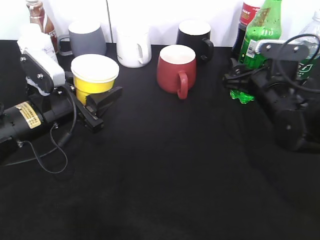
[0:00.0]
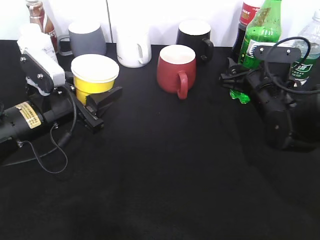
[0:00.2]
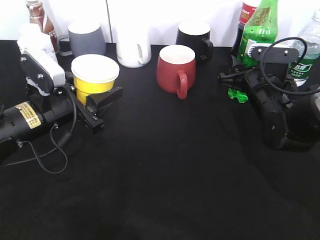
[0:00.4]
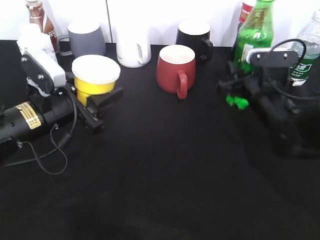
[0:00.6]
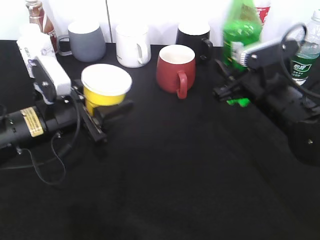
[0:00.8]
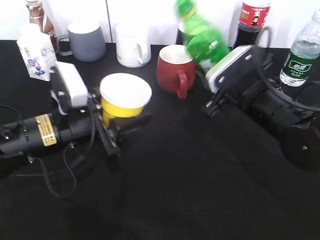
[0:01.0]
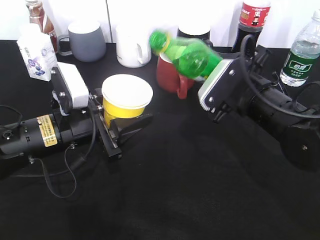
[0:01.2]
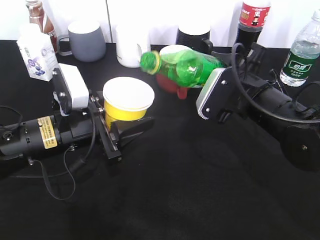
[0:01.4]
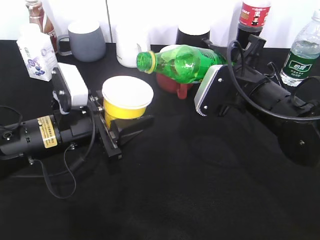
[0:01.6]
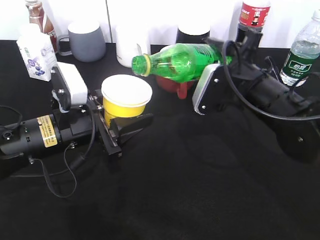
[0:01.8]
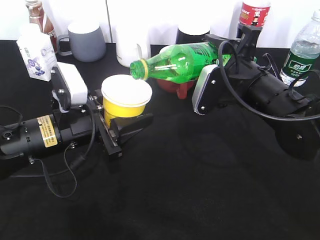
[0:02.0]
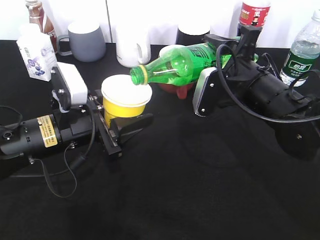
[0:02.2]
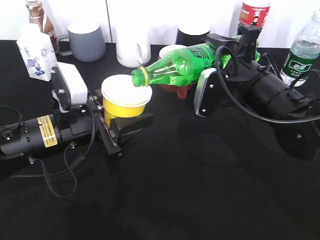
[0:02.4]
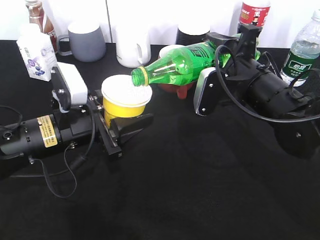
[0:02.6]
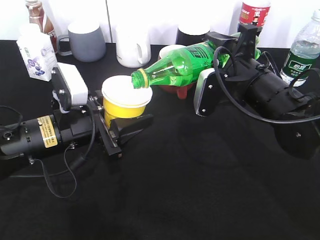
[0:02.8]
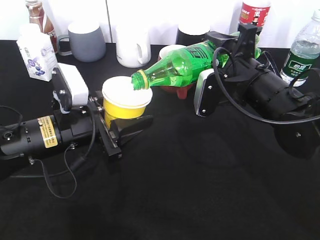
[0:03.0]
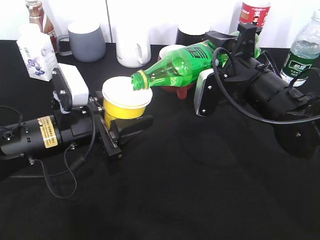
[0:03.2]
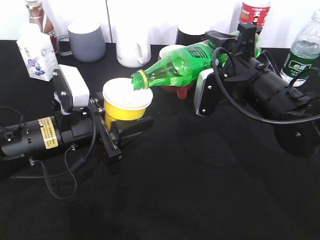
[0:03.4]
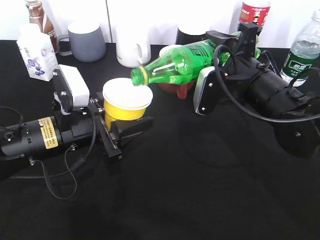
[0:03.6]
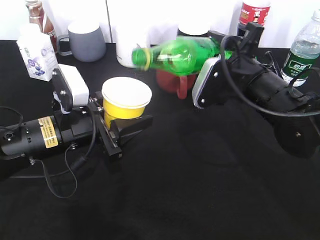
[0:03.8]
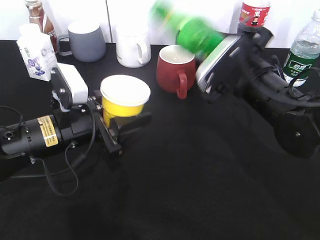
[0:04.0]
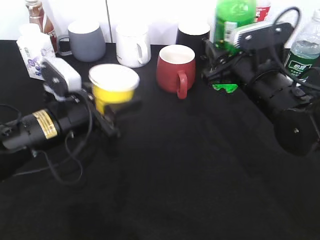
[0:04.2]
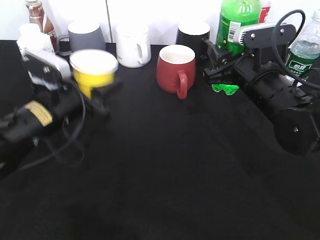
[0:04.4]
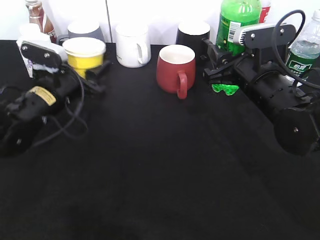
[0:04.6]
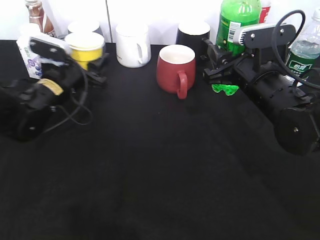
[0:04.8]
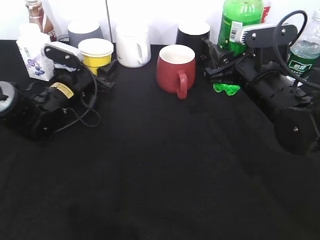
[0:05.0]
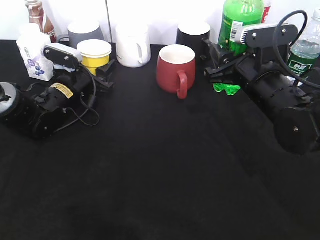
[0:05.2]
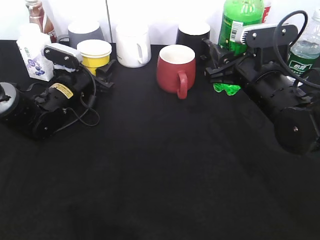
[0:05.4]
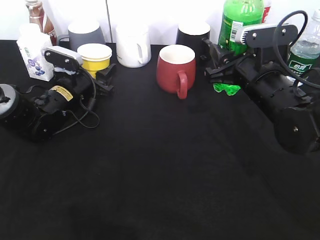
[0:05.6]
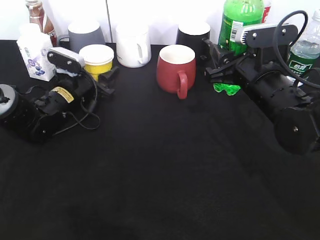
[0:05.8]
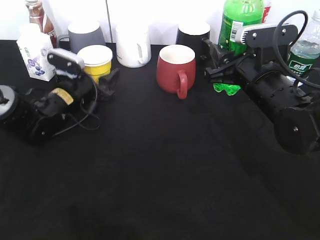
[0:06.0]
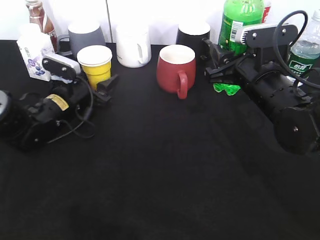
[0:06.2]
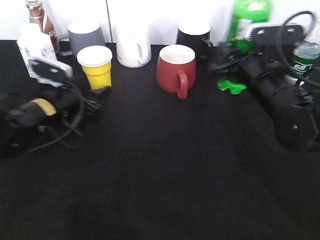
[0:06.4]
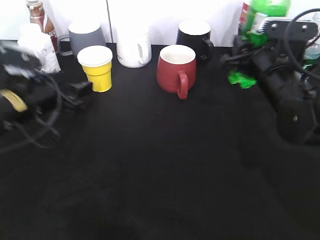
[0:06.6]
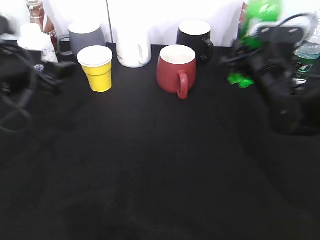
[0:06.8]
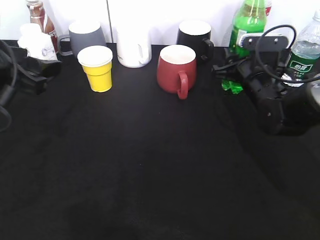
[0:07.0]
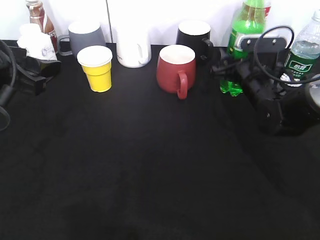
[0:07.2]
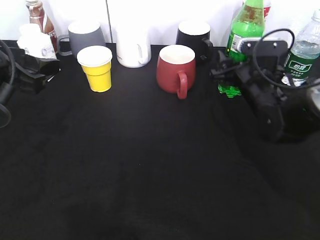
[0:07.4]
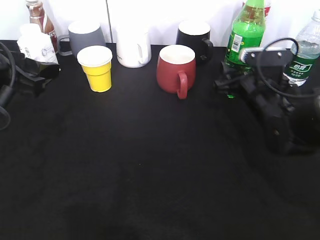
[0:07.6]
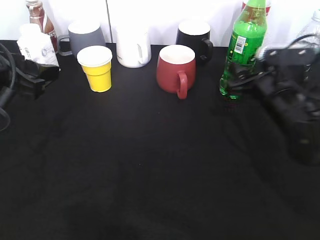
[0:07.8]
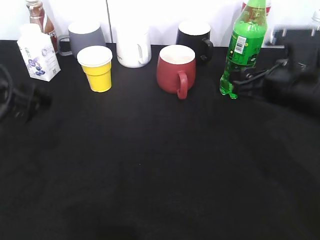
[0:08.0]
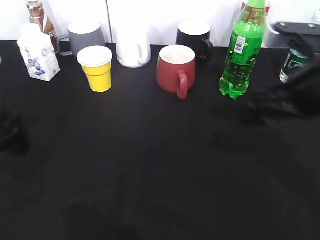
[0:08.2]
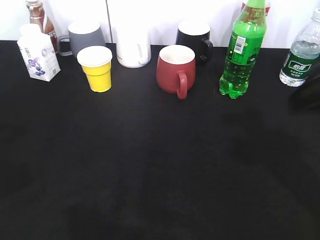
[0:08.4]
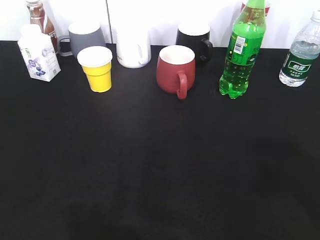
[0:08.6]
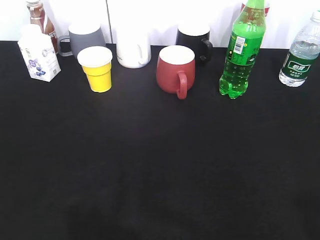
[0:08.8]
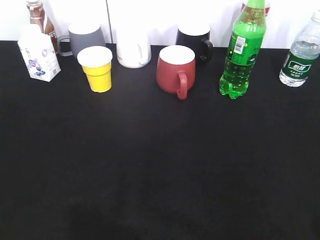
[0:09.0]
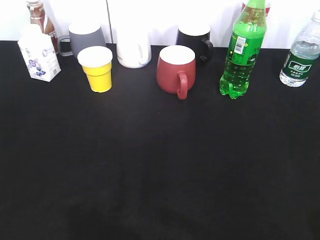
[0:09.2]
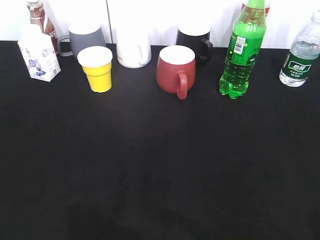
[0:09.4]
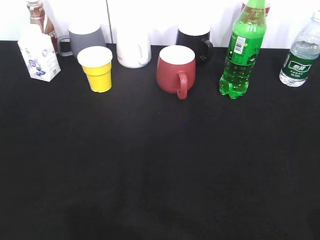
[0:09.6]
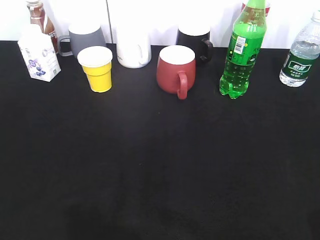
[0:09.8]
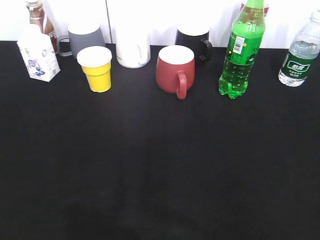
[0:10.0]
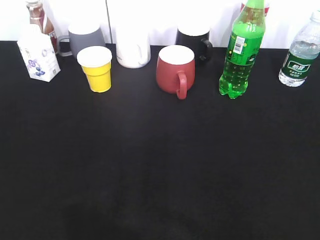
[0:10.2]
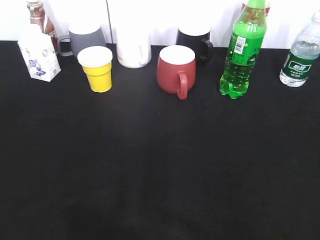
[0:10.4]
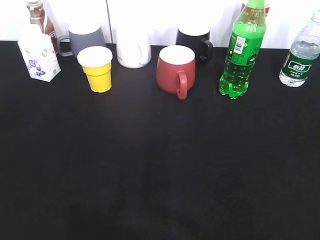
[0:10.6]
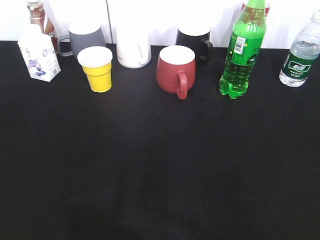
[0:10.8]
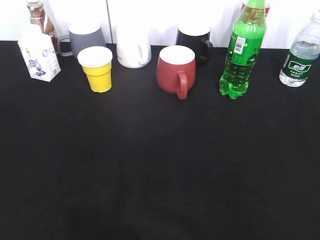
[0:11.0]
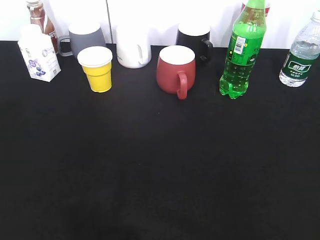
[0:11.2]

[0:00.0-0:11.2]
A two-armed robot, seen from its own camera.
Step, 0:00.6 to 0:03.8: Pour the sprite from bottle to cup with right gripper.
Step, 0:04.0 to 0:07.6: Place the sprite bottle on the table with right gripper.
0:00.0 to 0:01.6: The right gripper changes place by approximately 5 cm, and closes up; the left gripper shifts by about 5 cm.
0:03.2 to 0:04.8: The left gripper goes roughly 15 cm forward.
0:04.8 to 0:06.4: The left gripper opens.
0:06.4 to 0:08.0: The left gripper is displaced upward and backward by about 15 cm. The right gripper opens up.
0:08.0 to 0:09.6: The two grippers go roughly 25 cm backward.

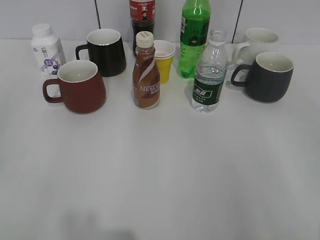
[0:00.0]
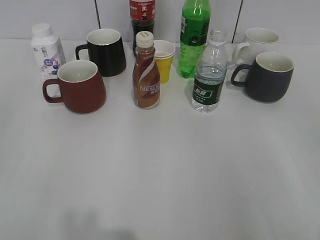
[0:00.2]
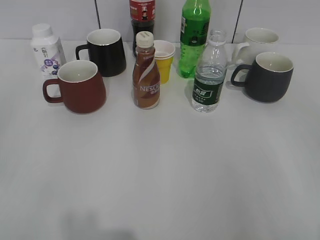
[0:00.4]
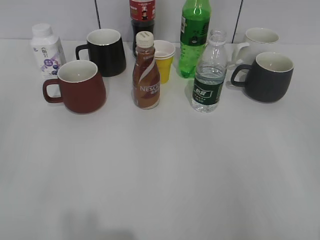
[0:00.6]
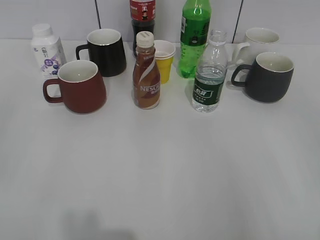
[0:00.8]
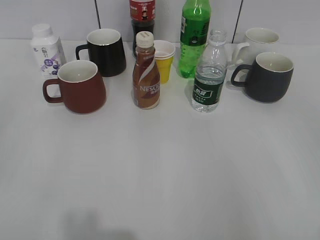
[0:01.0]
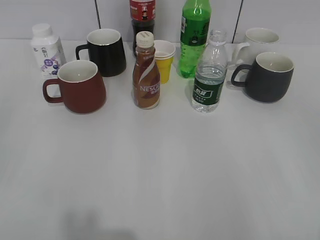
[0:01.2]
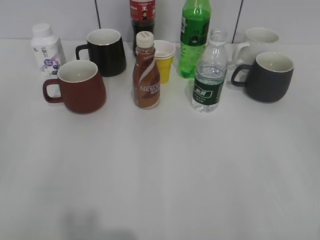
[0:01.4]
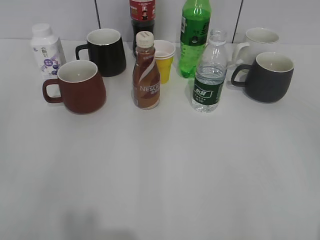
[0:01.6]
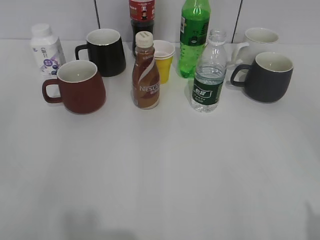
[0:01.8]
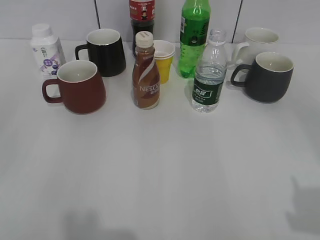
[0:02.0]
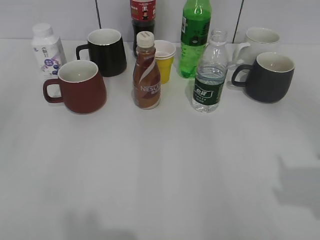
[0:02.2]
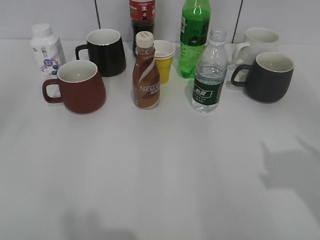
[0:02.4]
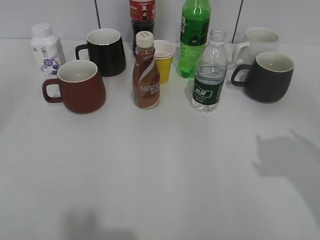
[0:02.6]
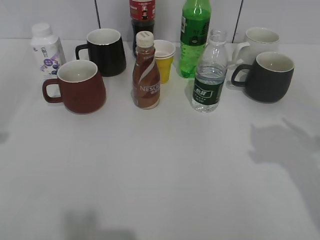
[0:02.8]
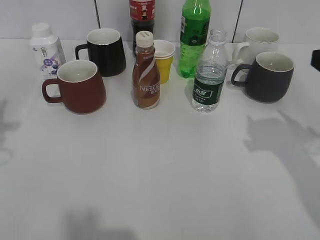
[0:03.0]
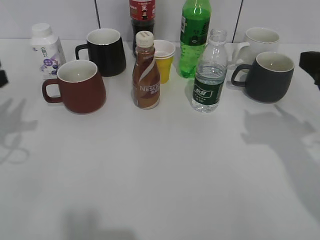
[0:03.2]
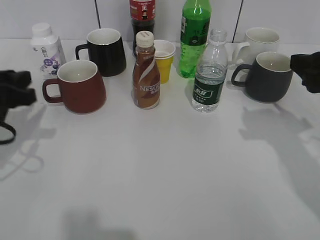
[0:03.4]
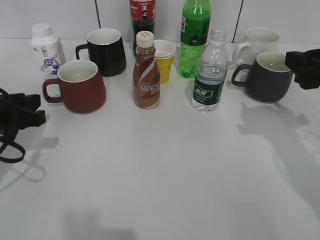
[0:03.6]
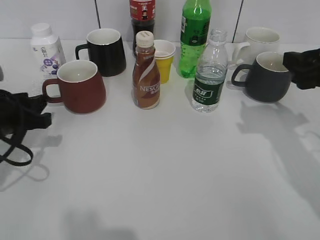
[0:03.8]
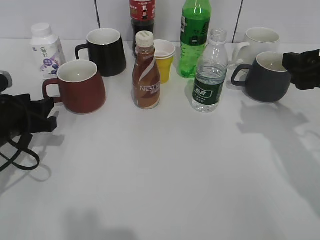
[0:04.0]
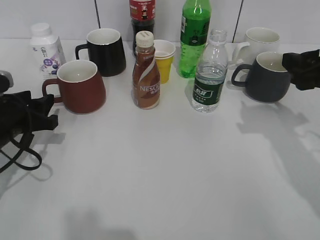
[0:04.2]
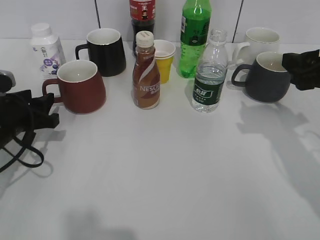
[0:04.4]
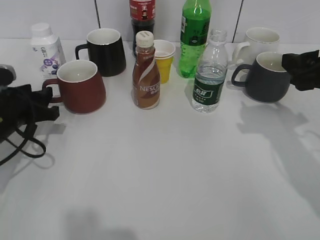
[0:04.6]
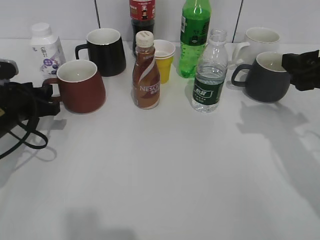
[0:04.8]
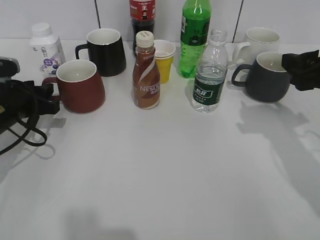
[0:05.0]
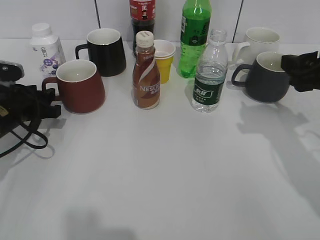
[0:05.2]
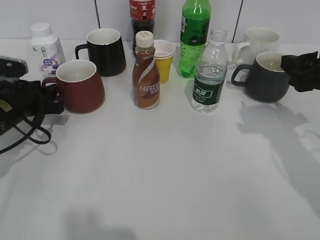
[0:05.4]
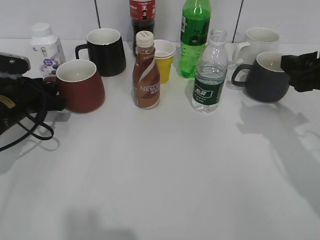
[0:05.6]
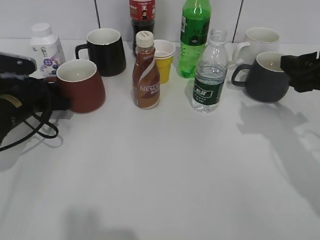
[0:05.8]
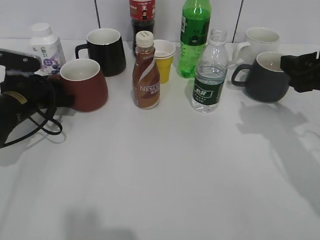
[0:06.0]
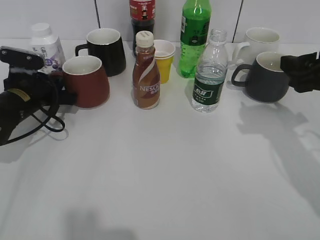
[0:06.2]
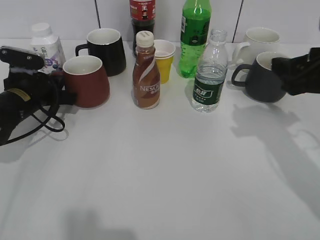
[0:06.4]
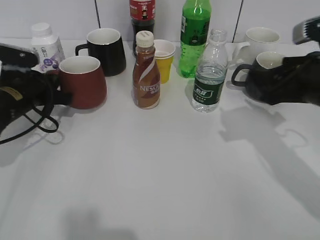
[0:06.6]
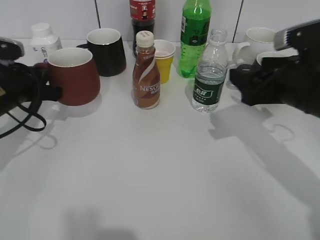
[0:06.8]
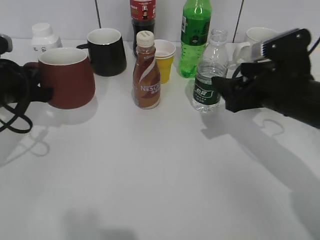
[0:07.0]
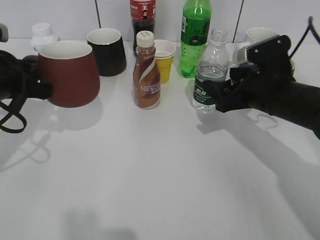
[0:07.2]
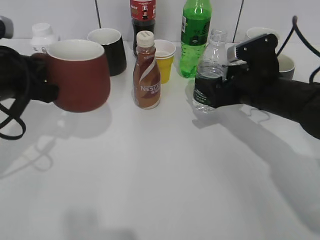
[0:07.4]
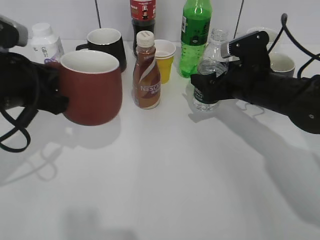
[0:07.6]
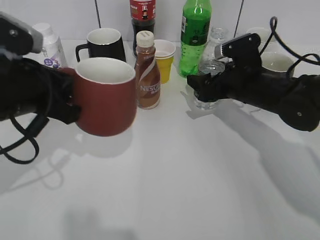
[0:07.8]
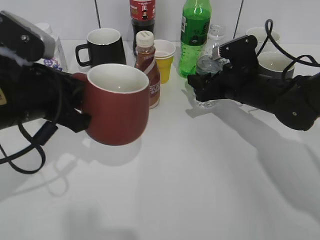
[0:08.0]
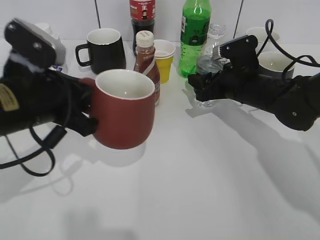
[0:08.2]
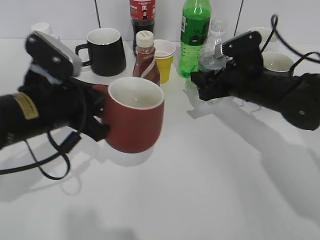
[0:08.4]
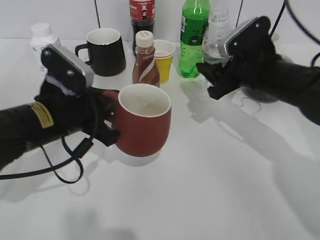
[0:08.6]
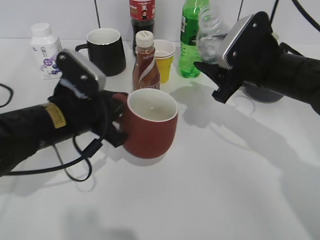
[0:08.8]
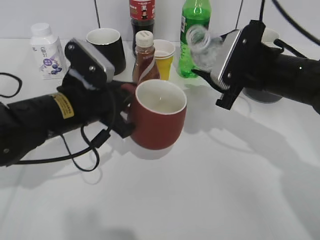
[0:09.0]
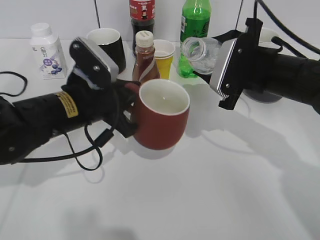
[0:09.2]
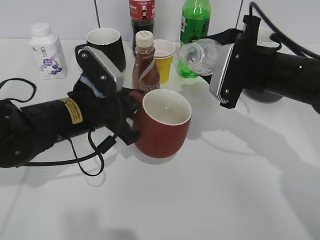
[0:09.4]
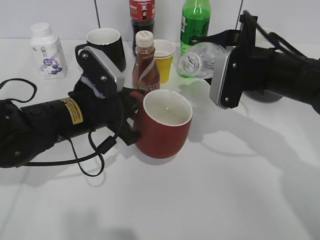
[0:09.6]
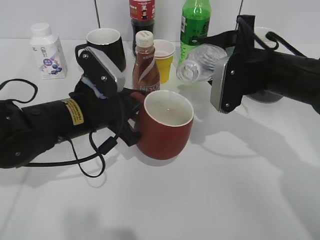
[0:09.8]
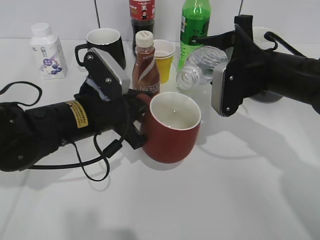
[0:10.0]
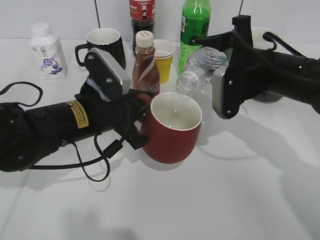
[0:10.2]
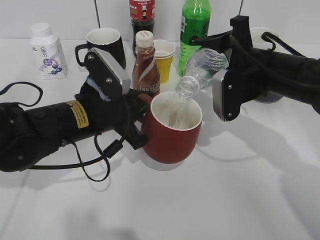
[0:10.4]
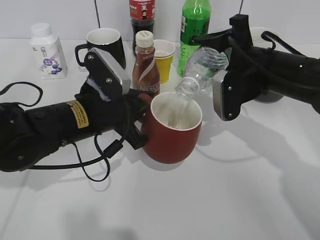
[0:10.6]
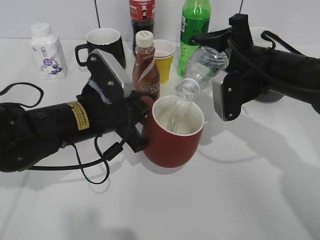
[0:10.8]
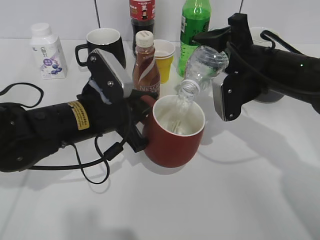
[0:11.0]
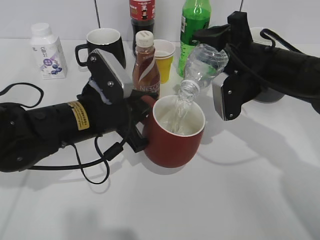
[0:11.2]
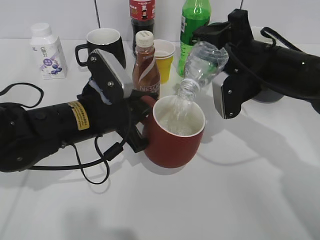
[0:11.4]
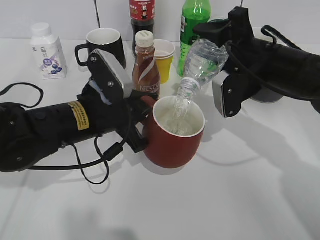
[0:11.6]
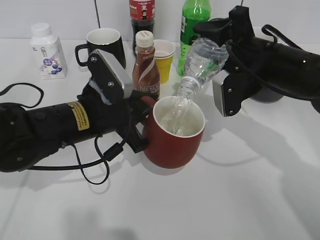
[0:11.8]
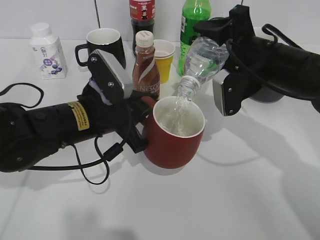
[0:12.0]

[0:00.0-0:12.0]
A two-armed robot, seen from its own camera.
Step, 0:01.4 to 0:06.0: Grasp the red cup with left gripper.
Step, 0:06.4 to 0:07.0: Lift the red cup with left gripper.
Step, 0:07.2 to 0:07.4: Grasp the bottle with water with right gripper.
0:01.6 to 0:03.0: The right gripper travels forward by about 20 cm.
0:03.0 to 0:04.4: The left gripper shifts approximately 15 cm downward and to the right, and opens up. Meanwhile the right gripper moves forward, some 5 cm.
0:04.4 to 0:06.0: The left gripper moves forward, some 10 cm, and closes.
0:06.0 to 0:07.6: The right gripper moves to the left, downward and forward, roughly 15 cm, while the left gripper travels upward and backward by about 15 cm, and closes up.
0:07.6 to 0:09.0: The right gripper goes approximately 5 cm upward, and closes up, while the left gripper is displaced to the right and downward by some 10 cm.
0:10.4 to 0:12.0: The grippers make only small movements.
